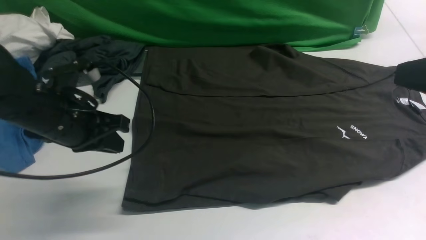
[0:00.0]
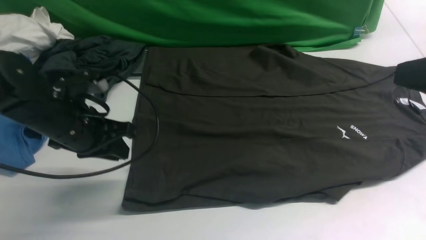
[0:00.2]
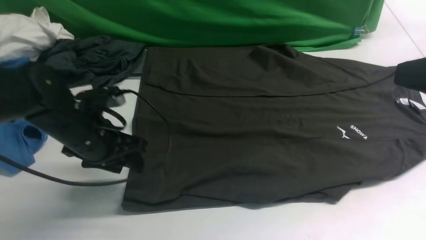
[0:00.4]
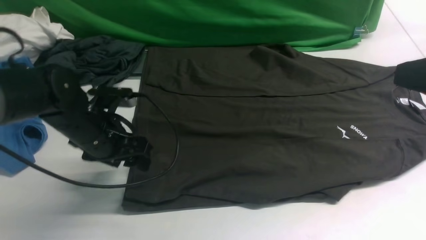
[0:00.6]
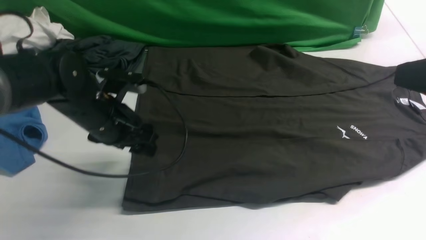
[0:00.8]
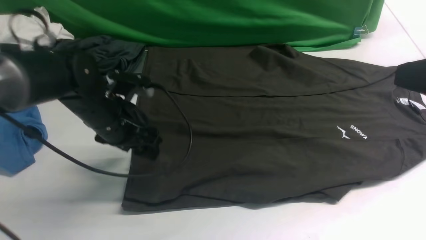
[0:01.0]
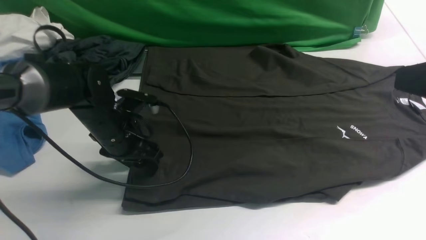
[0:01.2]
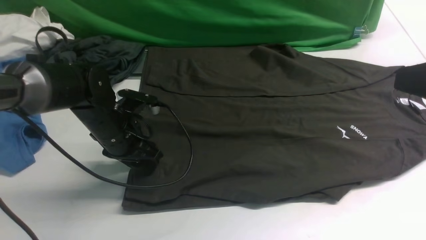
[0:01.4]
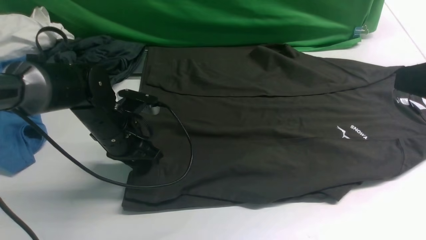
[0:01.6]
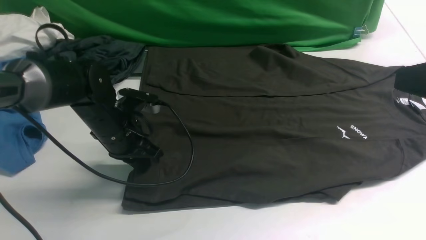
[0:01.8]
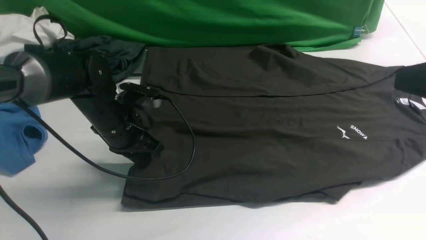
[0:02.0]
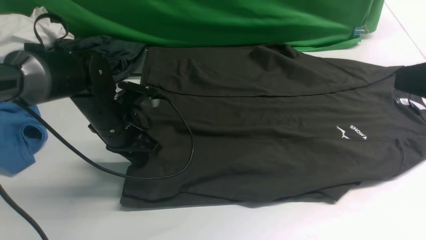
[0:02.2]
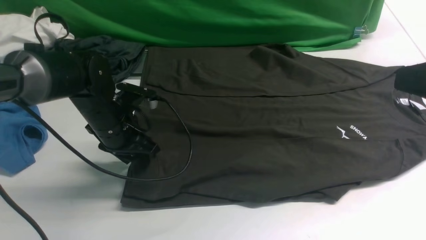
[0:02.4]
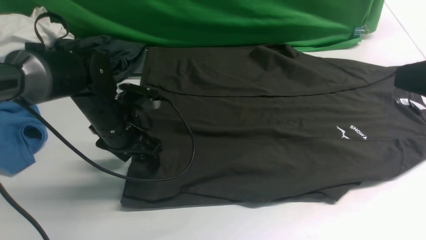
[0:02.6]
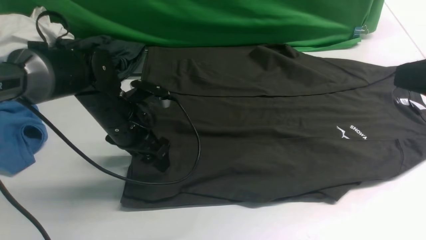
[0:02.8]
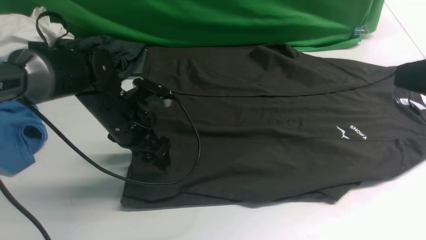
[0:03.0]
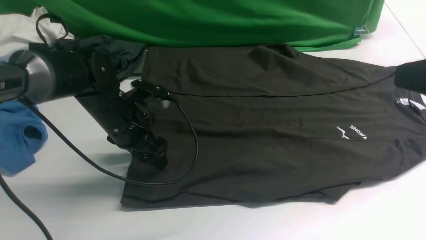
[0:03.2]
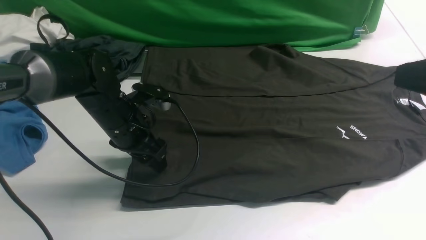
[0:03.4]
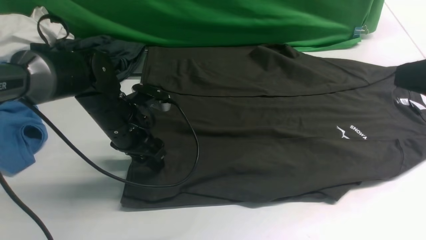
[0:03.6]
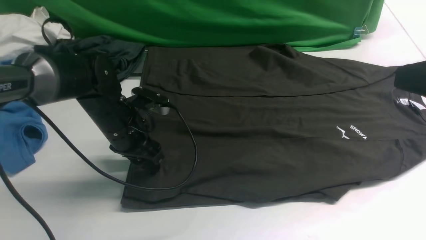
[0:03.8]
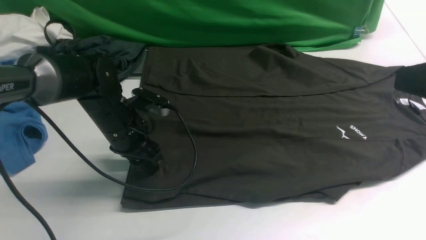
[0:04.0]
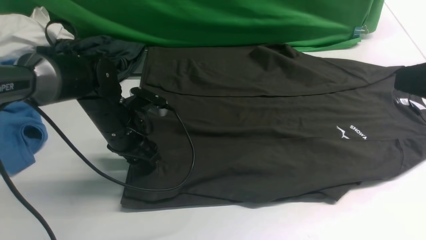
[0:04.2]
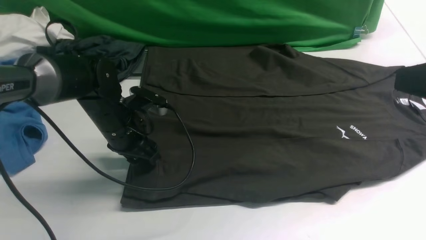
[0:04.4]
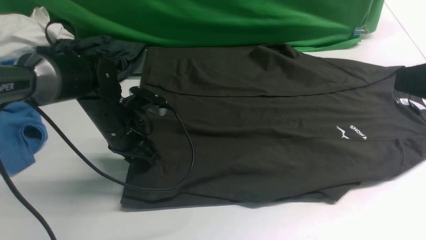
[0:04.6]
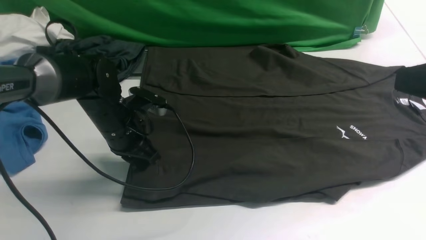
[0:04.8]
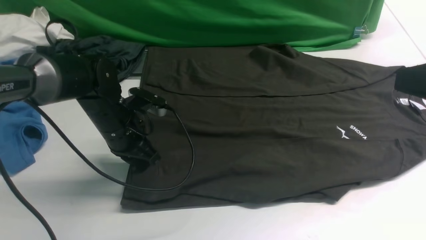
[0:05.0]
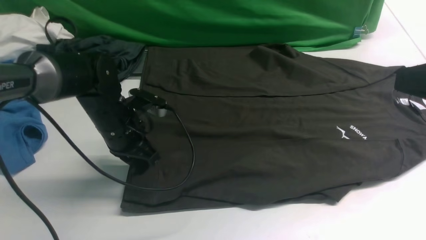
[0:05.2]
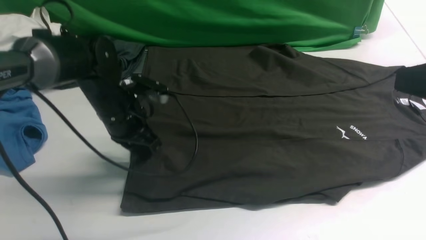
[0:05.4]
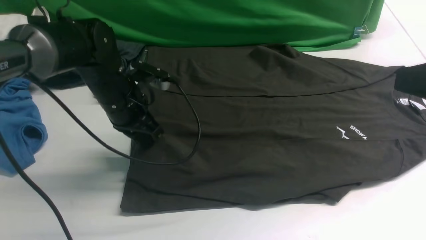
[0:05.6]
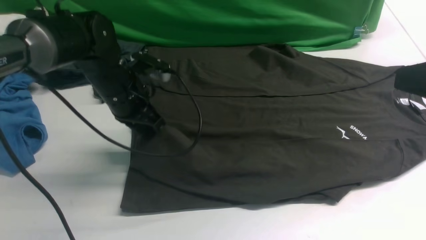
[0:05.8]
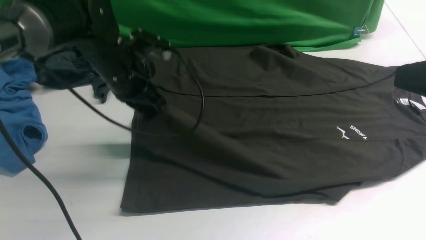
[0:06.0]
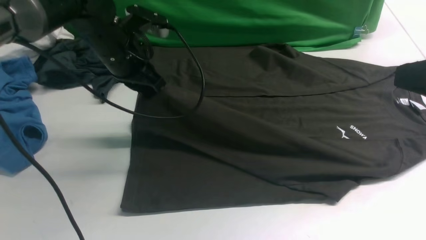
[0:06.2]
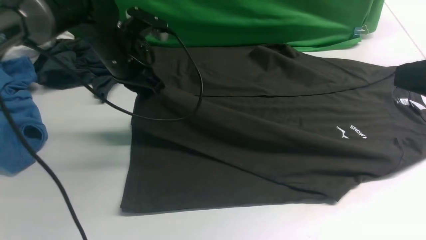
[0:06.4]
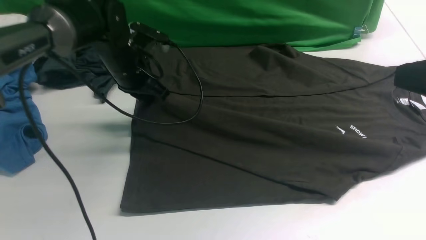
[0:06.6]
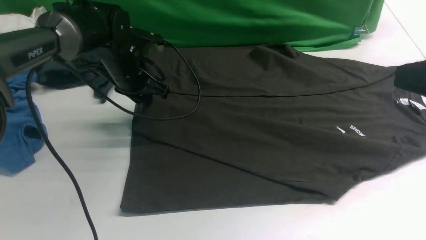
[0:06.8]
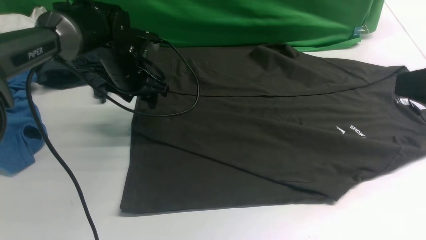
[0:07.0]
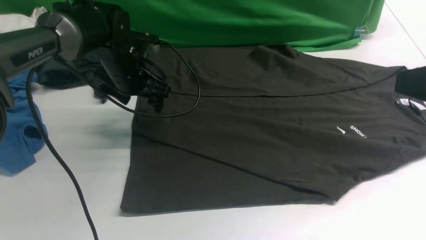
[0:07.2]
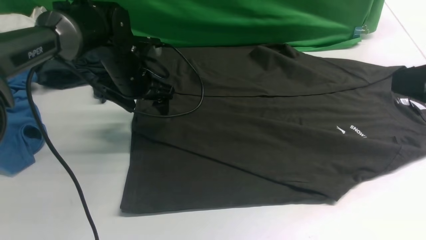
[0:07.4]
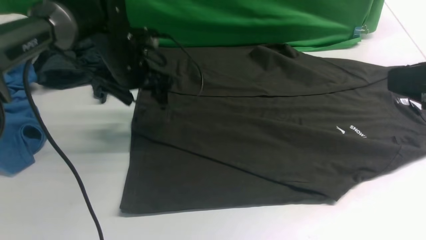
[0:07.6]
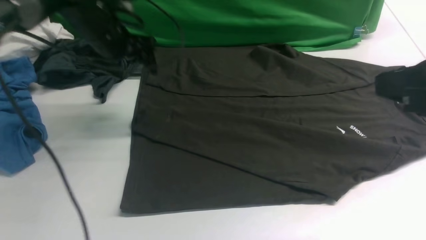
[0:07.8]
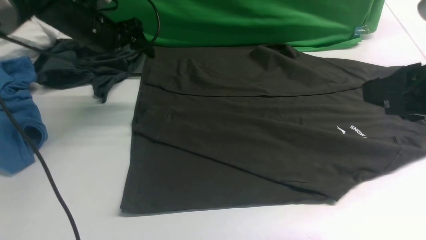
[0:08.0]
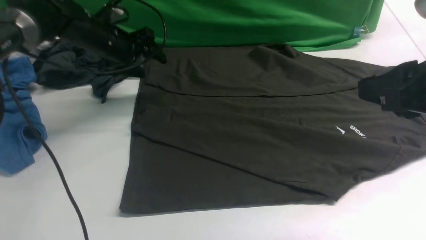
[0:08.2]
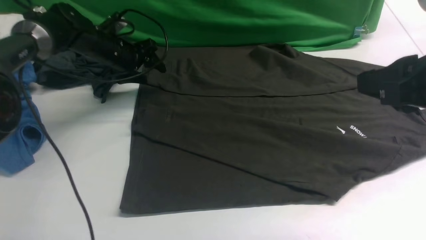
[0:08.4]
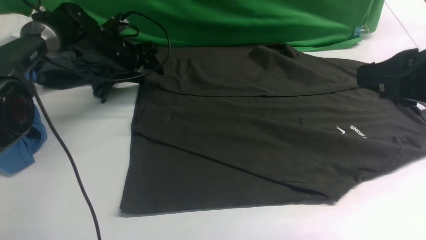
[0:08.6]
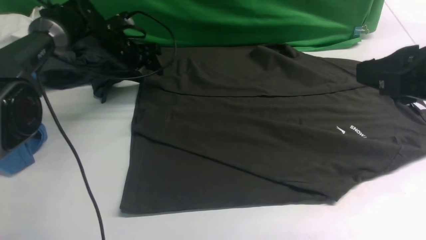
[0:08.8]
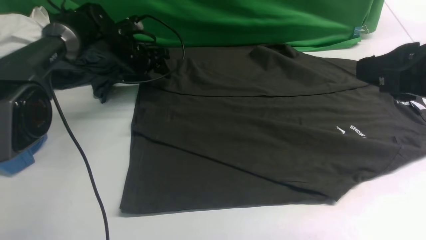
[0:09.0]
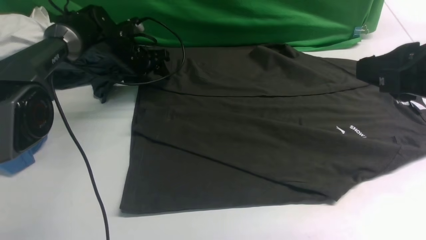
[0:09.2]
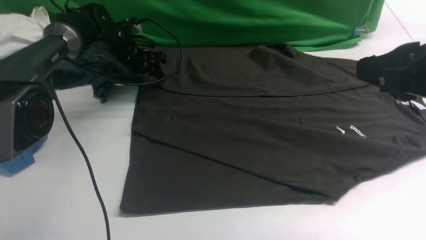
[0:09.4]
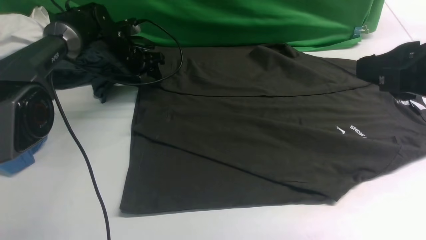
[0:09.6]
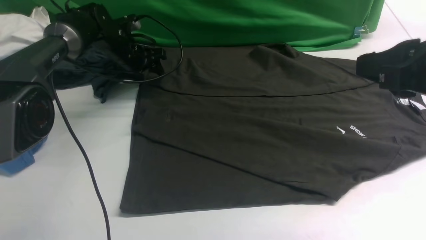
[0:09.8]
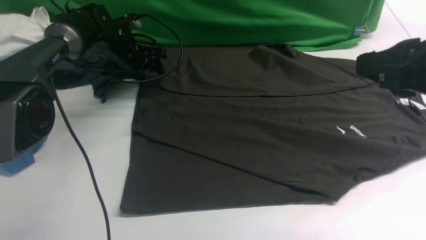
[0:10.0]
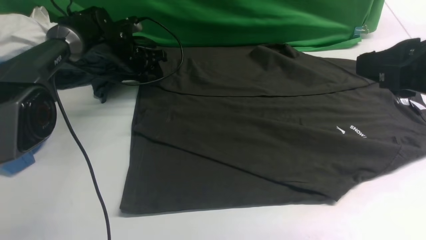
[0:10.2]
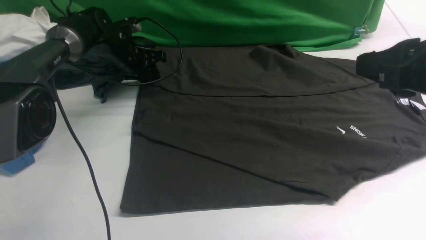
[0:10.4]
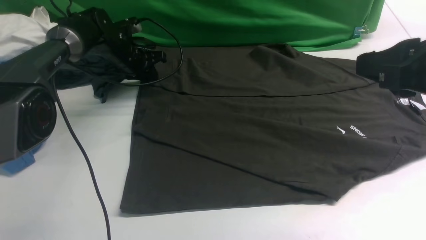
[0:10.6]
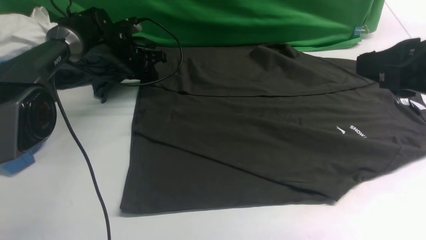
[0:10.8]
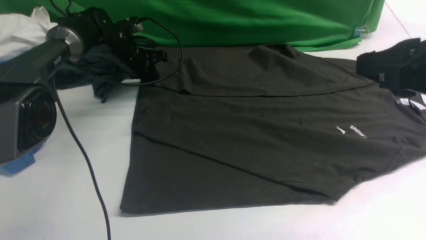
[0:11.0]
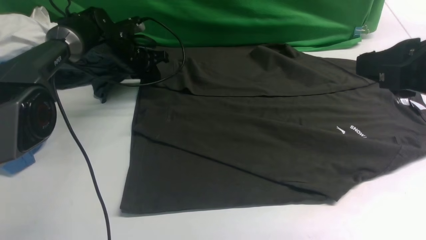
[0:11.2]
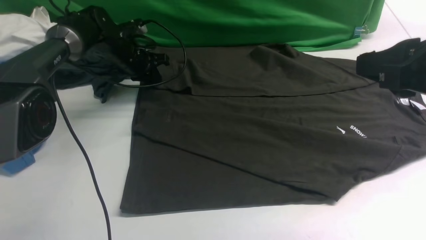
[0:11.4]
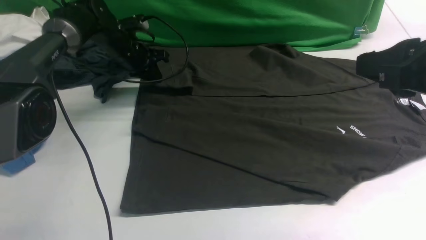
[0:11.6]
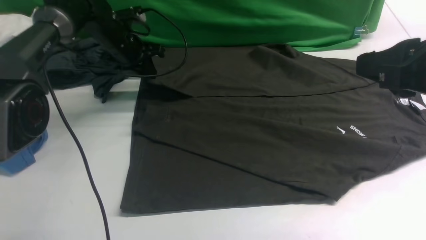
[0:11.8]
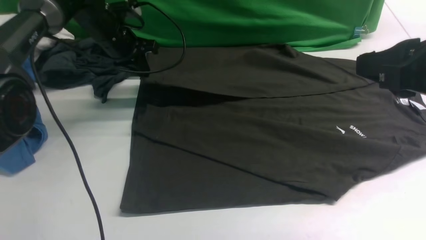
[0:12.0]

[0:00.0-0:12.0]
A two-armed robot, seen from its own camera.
Step, 0:00.0 to 0:05.4: use the left arm to clamp the cuff closest to it.
Step, 0:05.6 to 0:07.0: use the left arm to drag and place the cuff at the centered position on the left edge of the fabric.
Step, 0:07.2 to 0:11.6: use the left arm to clamp the cuff farthest from it.
0:00.0 to 0:01.6: The left gripper heads downward and forward, covering some 10 cm, and opens and closes again.
0:01.6 to 0:03.0: The left gripper opens up.
0:03.0 to 0:04.4: The left gripper closes.
0:04.4 to 0:06.0: The left gripper travels upward by some 10 cm, and closes.
0:06.0 to 0:07.6: The left gripper ends up approximately 5 cm from where it was, and opens up.
0:07.6 to 0:09.0: The left gripper goes about 10 cm forward and downward.
0:09.0 to 0:10.4: The grippers move only a little.
0:10.4 to 0:12.0: The left gripper is displaced upward by about 5 cm.

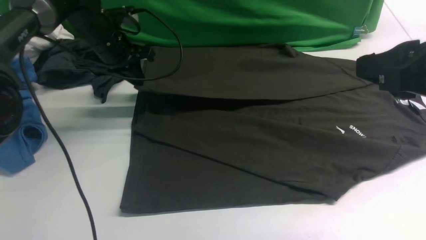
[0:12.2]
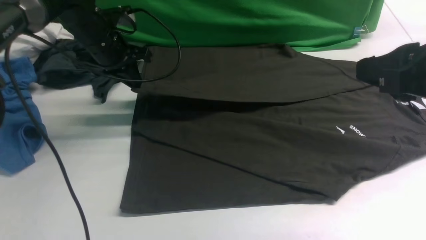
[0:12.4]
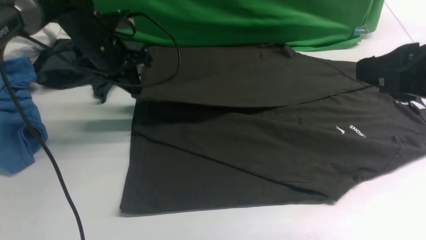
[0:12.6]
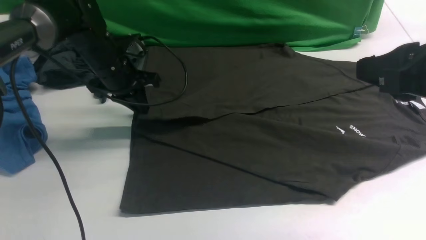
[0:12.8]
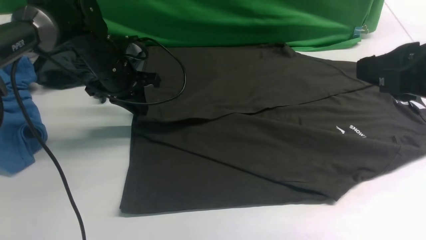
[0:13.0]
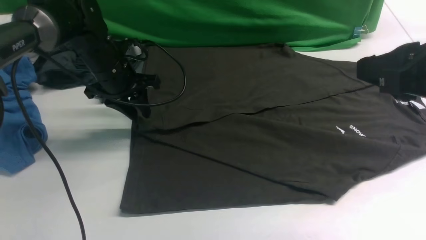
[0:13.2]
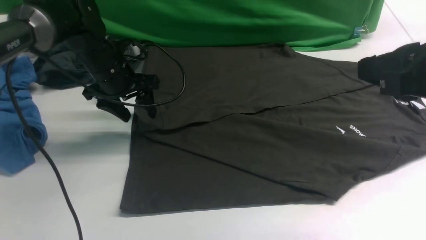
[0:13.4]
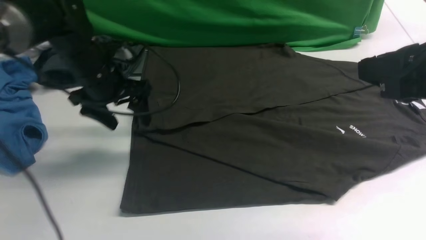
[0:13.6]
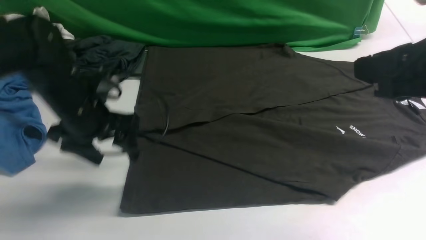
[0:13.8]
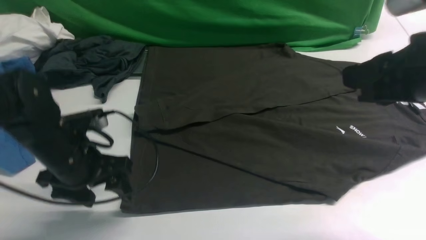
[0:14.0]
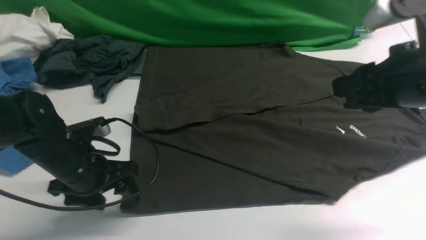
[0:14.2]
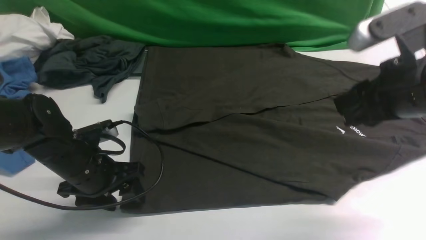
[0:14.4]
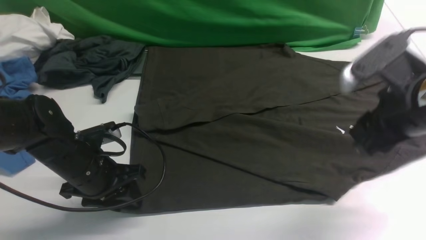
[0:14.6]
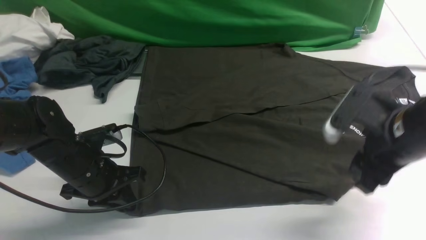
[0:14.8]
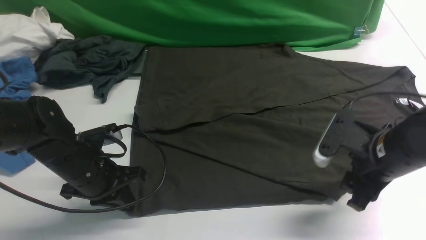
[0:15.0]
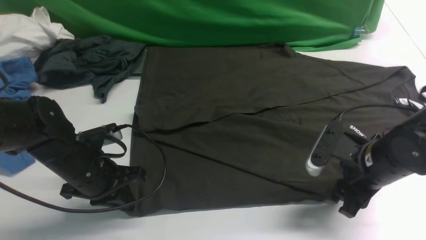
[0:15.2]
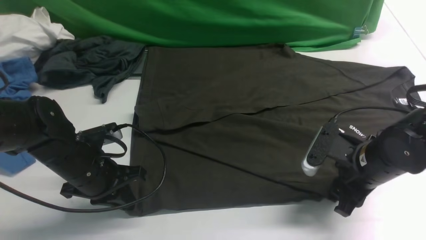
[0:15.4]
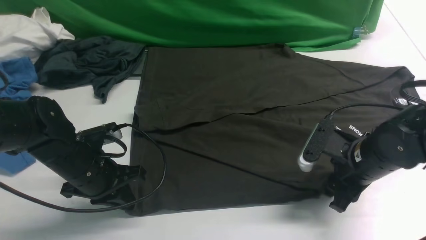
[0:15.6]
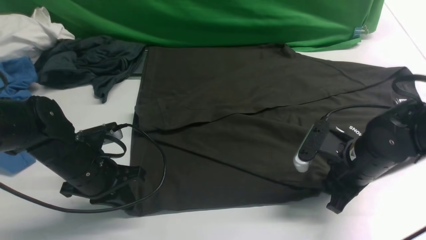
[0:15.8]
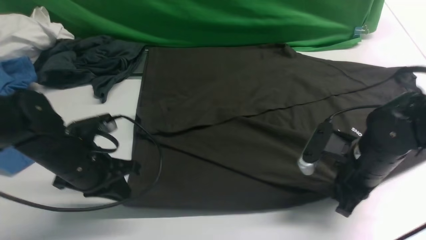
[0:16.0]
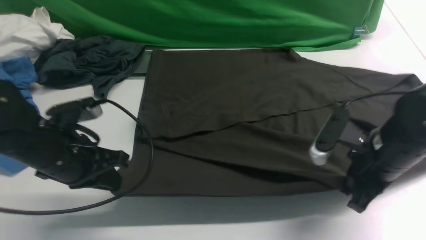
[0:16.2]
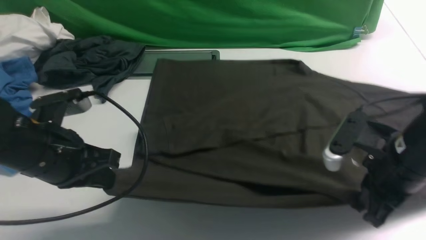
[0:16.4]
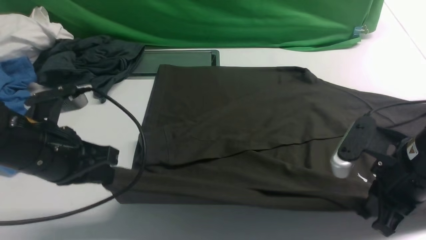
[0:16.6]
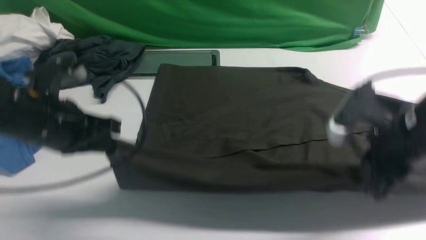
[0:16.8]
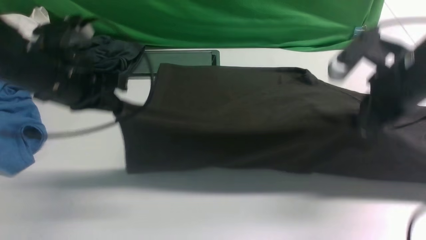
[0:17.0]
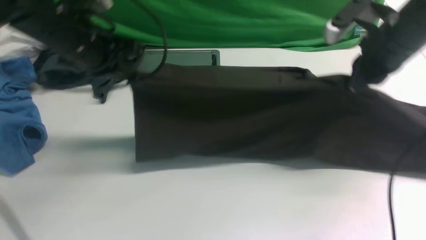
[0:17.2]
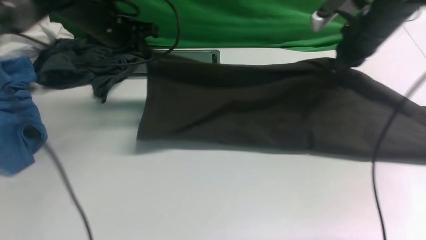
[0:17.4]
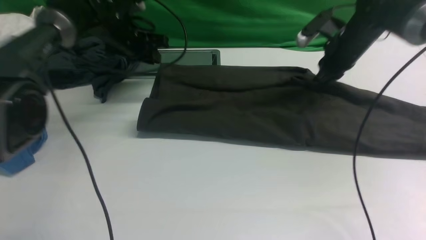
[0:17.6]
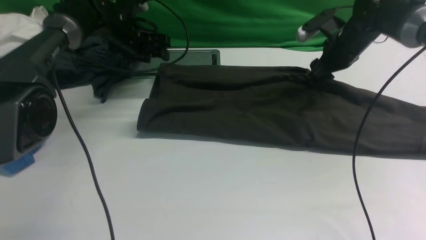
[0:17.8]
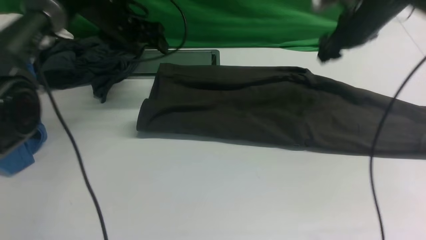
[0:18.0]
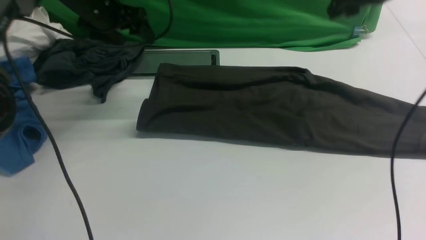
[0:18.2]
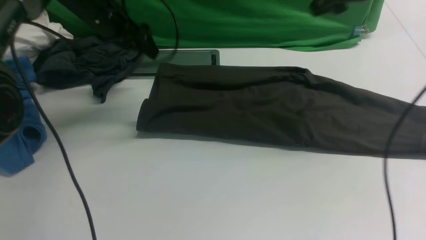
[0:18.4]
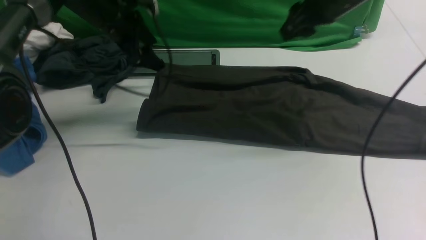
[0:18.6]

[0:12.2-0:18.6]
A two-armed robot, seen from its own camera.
Step, 0:12.2 to 0:13.4: use the left arm to drag and drop the cuff onto the cuff closest to the left arm.
Step, 0:13.6 to 0:16.4: use both arms simultaneously to clamp the lower edge of the clothing fabric.
0:12.2 to 0:13.8: The left gripper travels backward by approximately 15 cm, and opens.
0:13.8 to 0:15.4: The left gripper moves downward and backward, some 10 cm, and closes; the right gripper moves downward, about 20 cm.
0:15.4 to 0:17.0: The right gripper heads upward, covering about 15 cm, and closes. The left gripper moves upward and forward, about 15 cm.
0:17.0 to 0:18.6: The two grippers go roughly 15 cm forward. The right gripper opens, while the left gripper opens its fingers.
